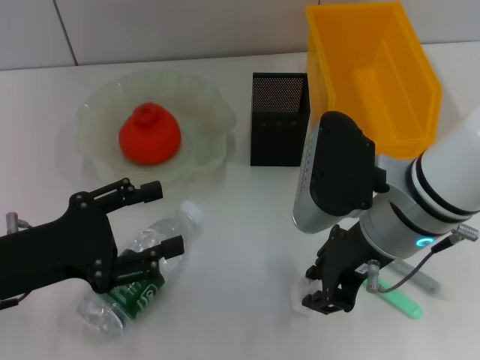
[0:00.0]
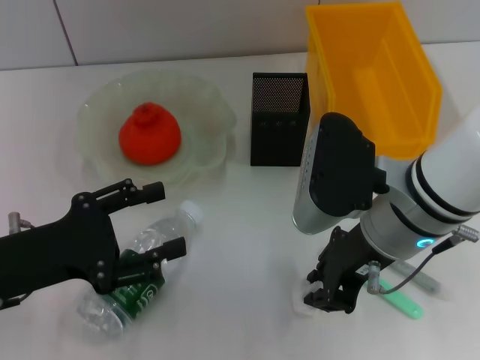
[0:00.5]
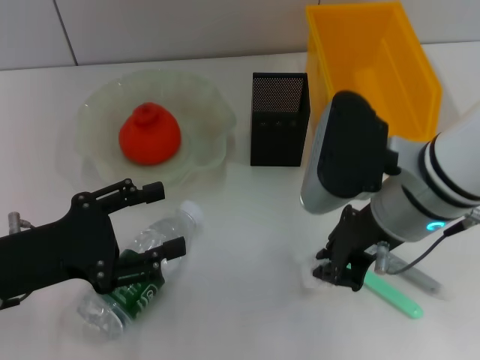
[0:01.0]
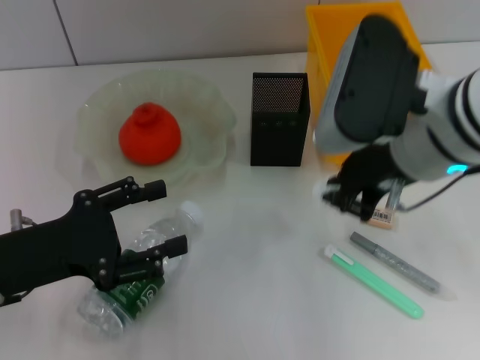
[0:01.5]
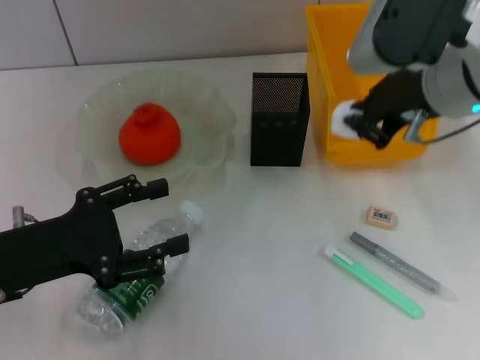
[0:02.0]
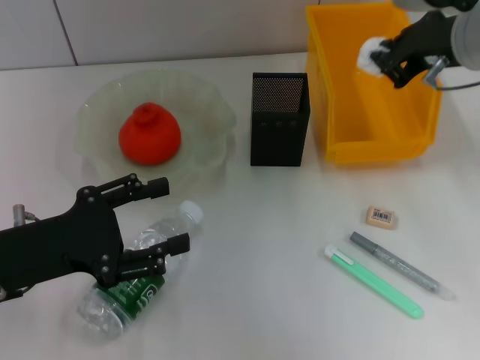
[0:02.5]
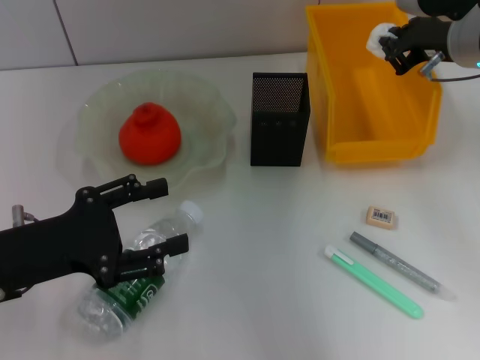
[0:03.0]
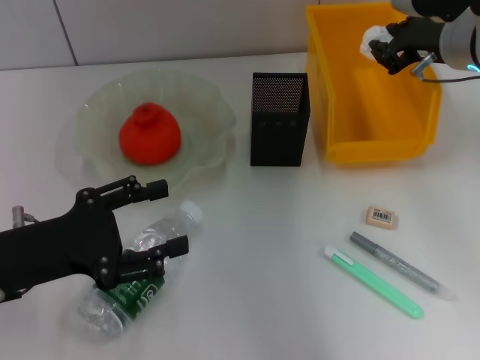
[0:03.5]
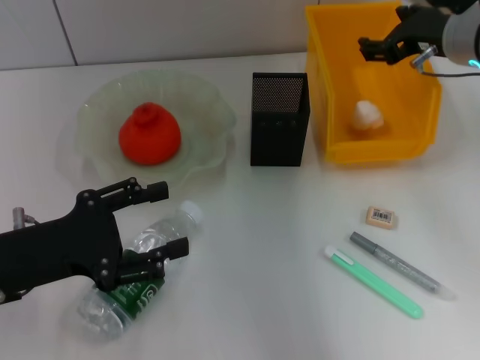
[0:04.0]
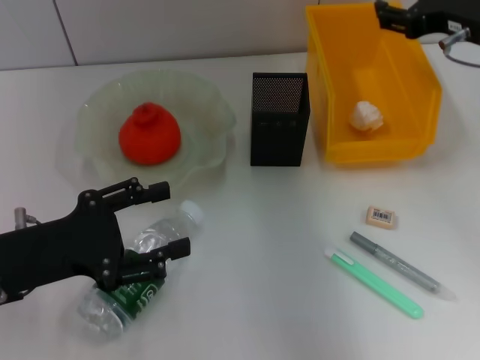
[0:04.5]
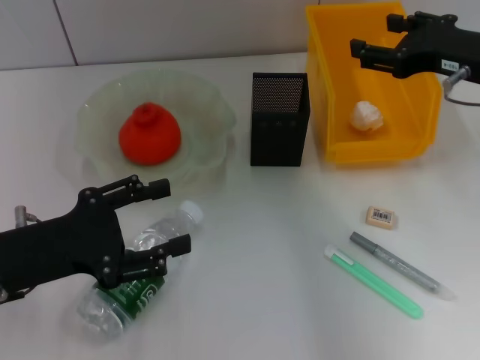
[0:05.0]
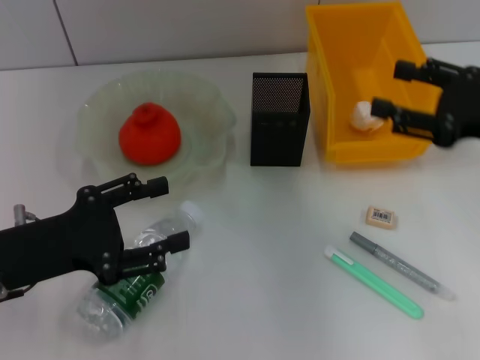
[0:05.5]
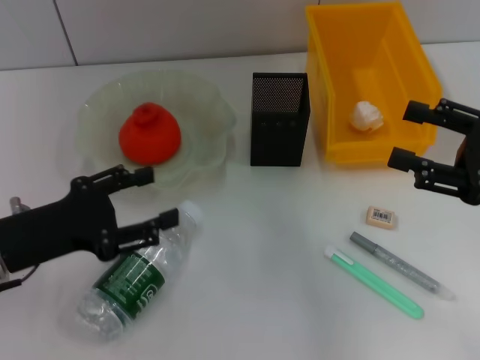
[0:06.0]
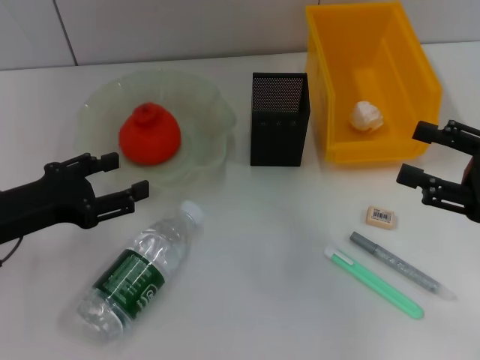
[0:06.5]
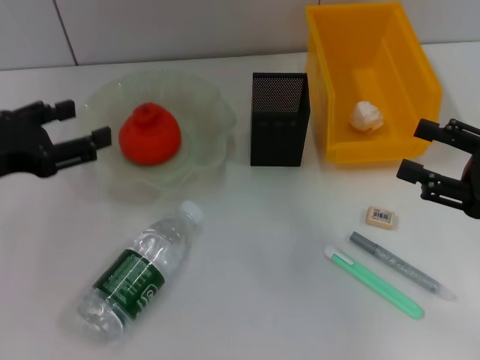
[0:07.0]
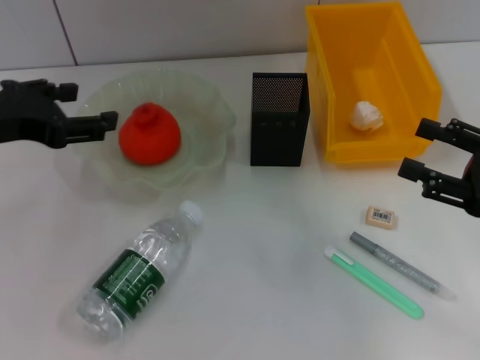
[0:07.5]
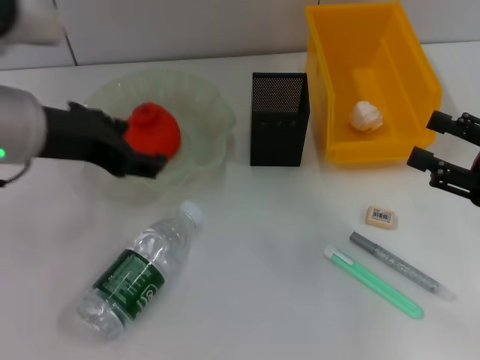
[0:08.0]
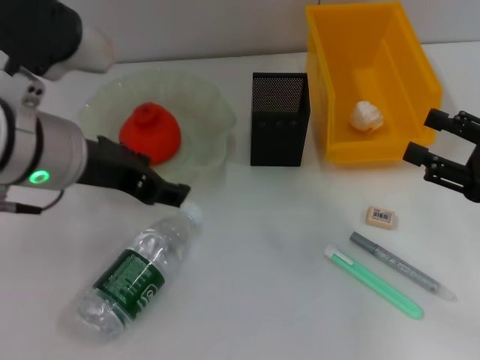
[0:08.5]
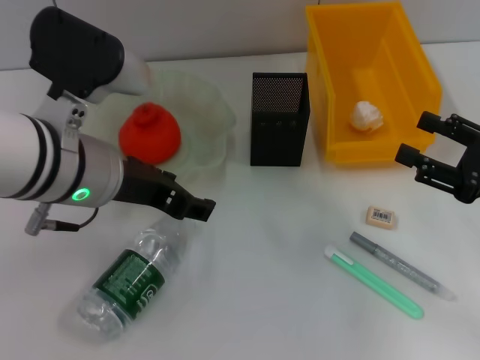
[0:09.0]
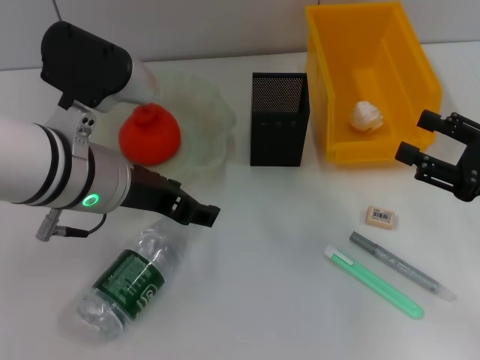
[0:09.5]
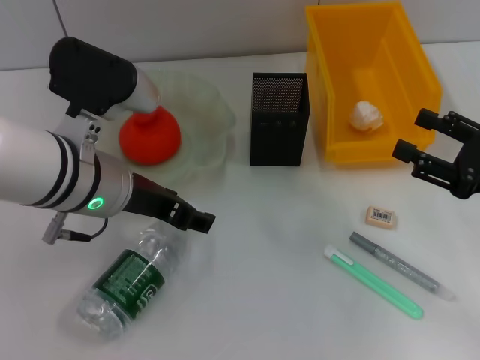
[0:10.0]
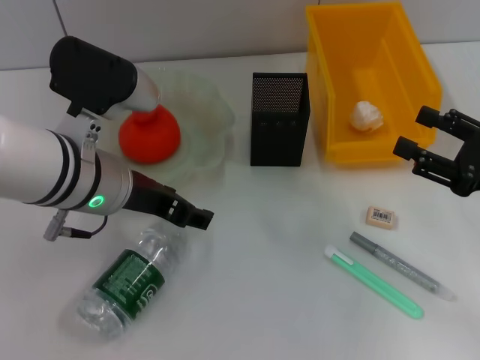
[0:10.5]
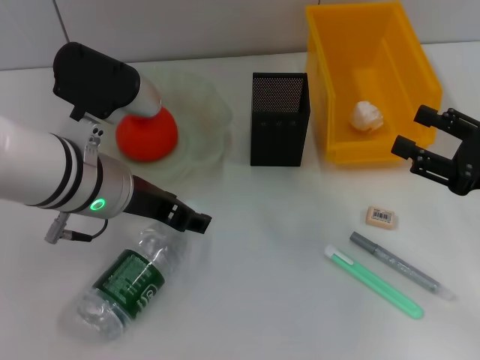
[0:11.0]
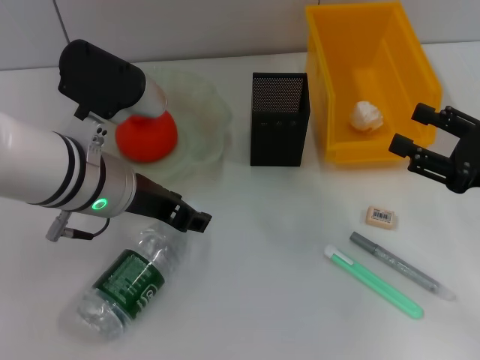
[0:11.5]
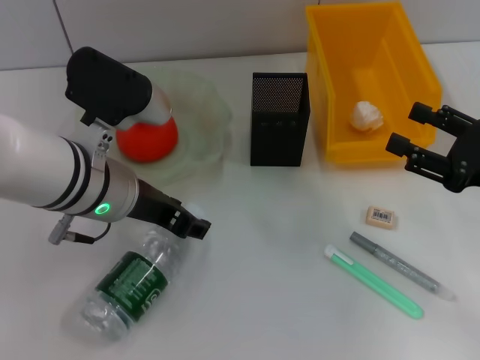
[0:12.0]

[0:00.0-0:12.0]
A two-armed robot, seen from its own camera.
Step, 0:01.0 to 0:03.5: Place the paper ball into the trash can with the right hand.
0:00.0 to 0:02.0: The right gripper travels upward by about 10 cm, and closes.
0:02.0 to 0:04.0: The right gripper moves forward and to the right, roughly 10 cm, and opens up.
0:04.0 to 0:06.0: The right gripper shifts roughly 20 cm backward, to the right and downward.
0:06.0 to 0:08.0: The left gripper travels upward and to the right by roughly 15 cm.
0:08.0 to 0:10.0: The left gripper is displaced downward by some 5 cm.
0:10.0 to 0:12.0: Neither gripper changes place.

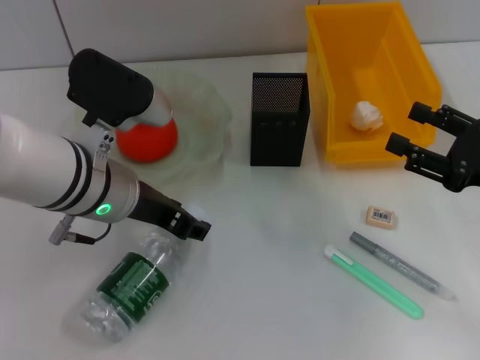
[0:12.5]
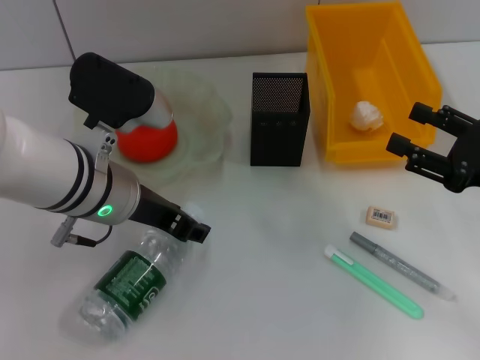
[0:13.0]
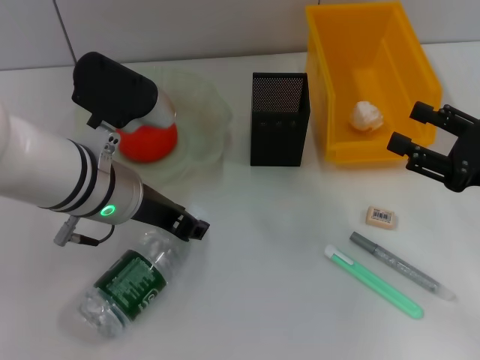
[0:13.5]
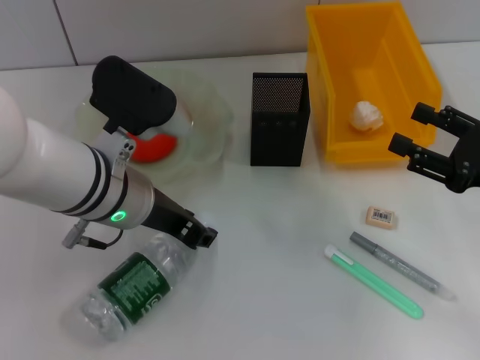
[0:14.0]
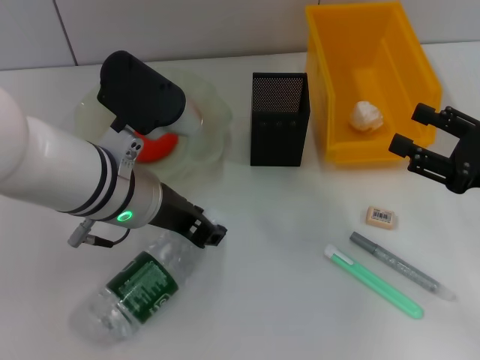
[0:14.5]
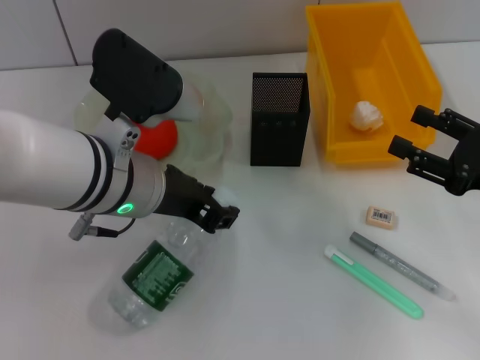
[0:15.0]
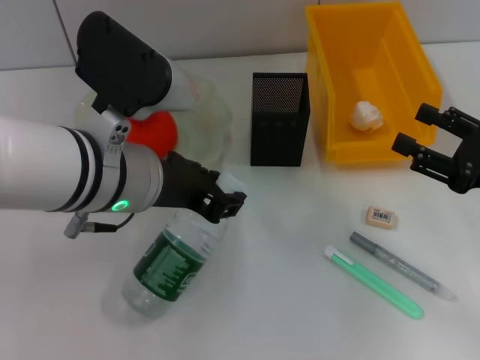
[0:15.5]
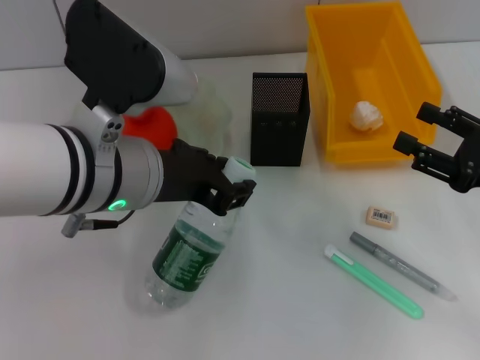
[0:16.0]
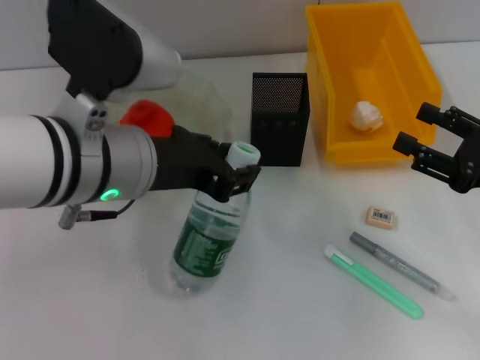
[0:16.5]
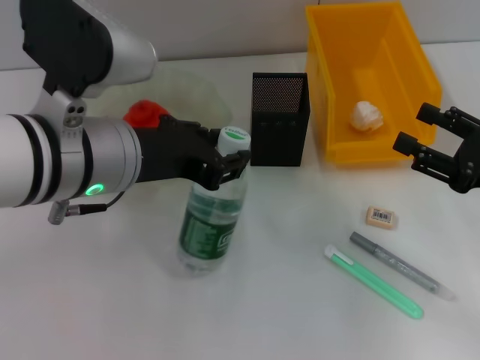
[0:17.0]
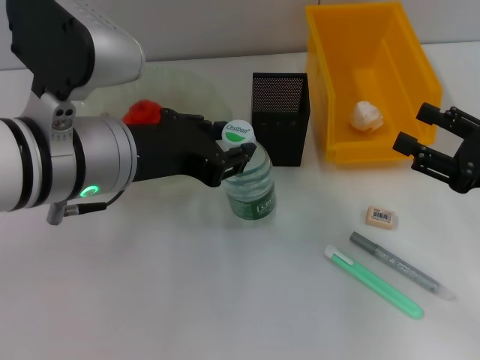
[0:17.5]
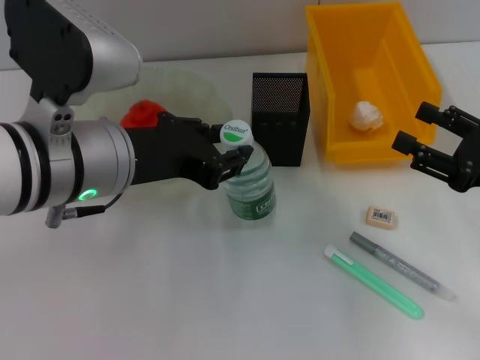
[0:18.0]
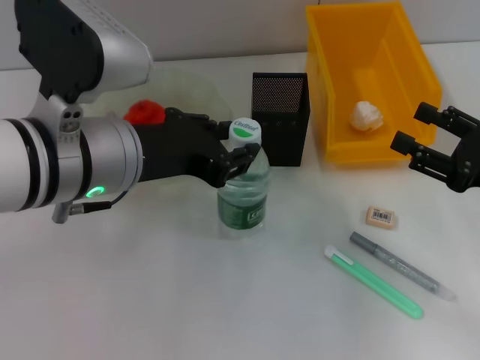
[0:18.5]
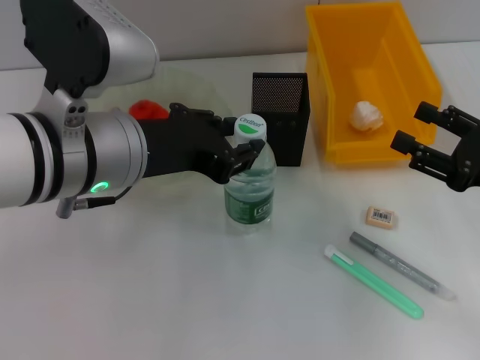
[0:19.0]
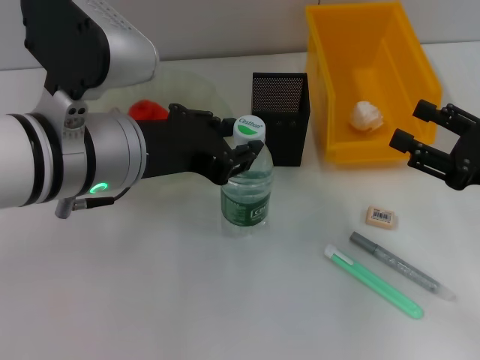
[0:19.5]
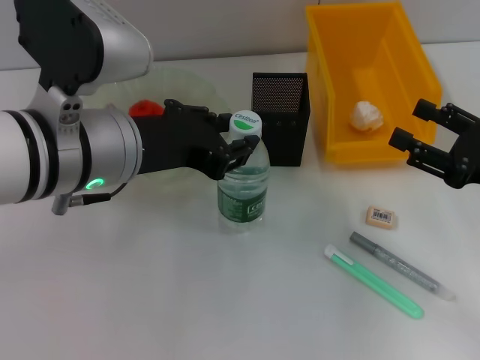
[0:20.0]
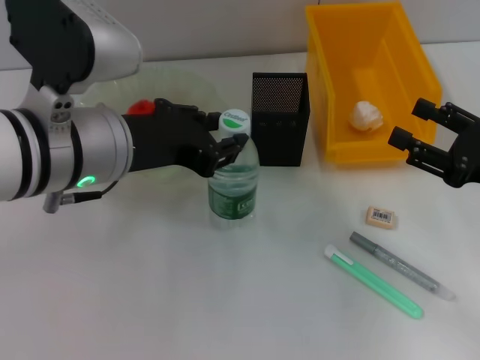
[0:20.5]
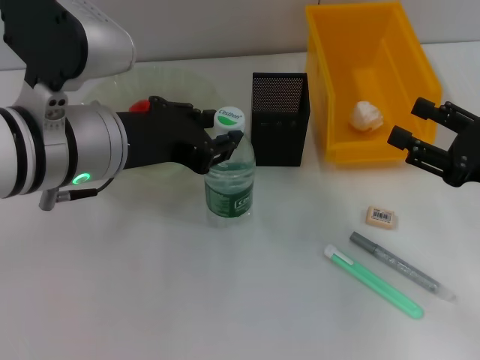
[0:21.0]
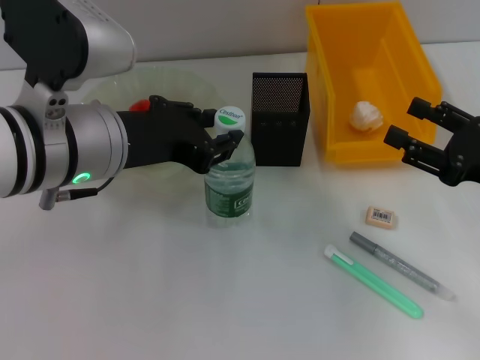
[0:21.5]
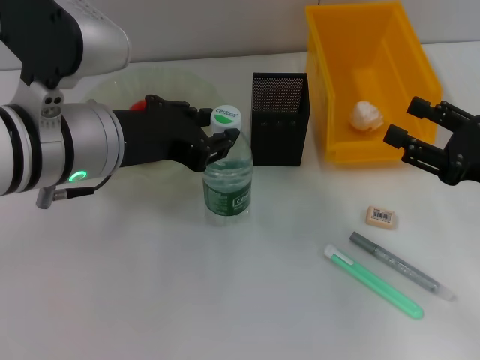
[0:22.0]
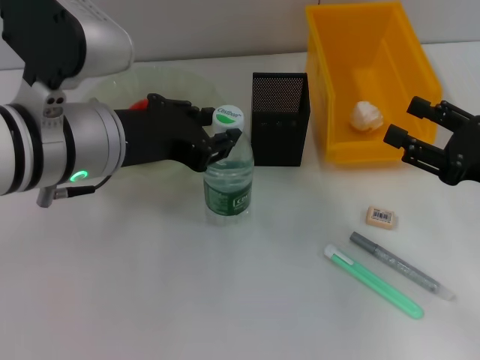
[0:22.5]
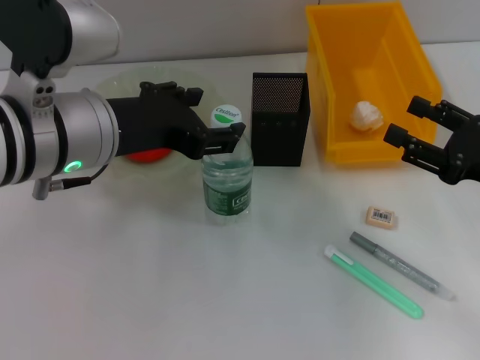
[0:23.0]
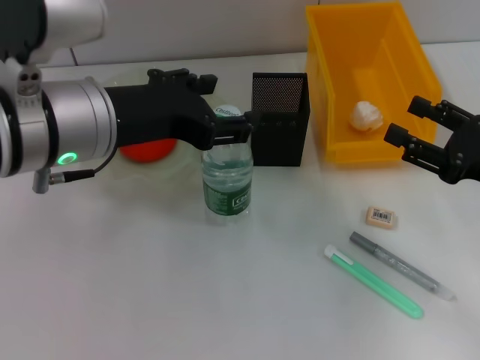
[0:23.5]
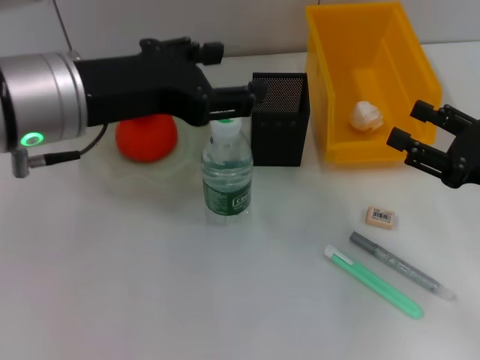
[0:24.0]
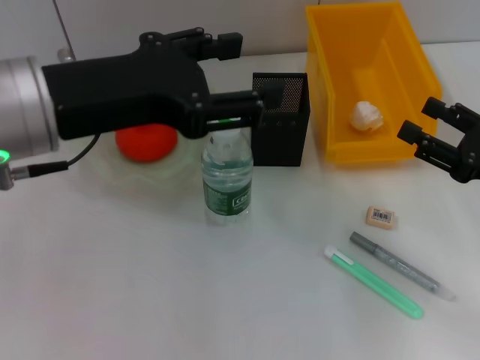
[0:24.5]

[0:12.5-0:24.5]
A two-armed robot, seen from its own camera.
Step, 0:14.5 to 0:22.5: Place the water bottle on the table with the left hand.
0:12.5 to 0:14.5: There are only small adjustments of the grippers.
0:14.5 to 0:16.5: The left gripper heads upward, covering about 5 cm.
0:16.5 to 0:18.5: There are only small adjustments of the grippers.
0:18.5 to 0:20.5: Both grippers stay put.
0:20.5 to 0:22.5: Both grippers stay about where they are.
0:22.5 to 0:24.5: The left gripper moves roughly 5 cm, and opens up.

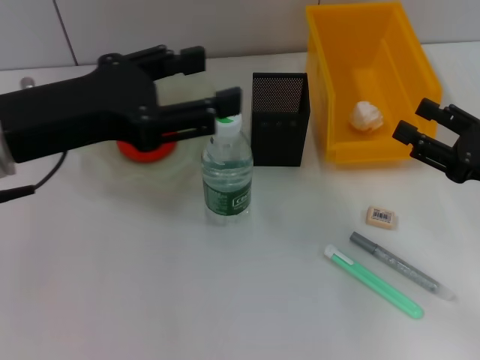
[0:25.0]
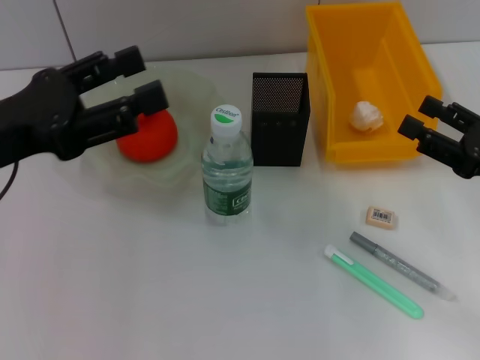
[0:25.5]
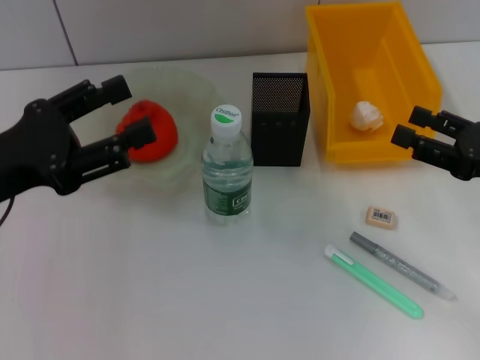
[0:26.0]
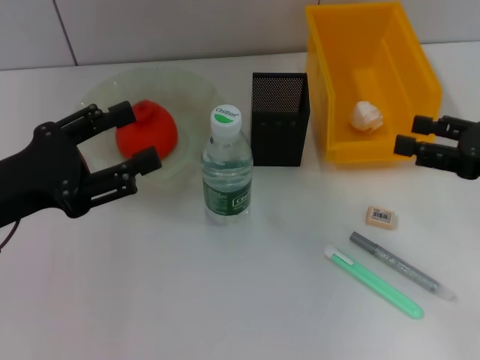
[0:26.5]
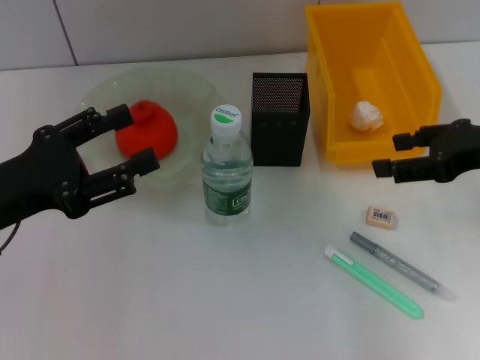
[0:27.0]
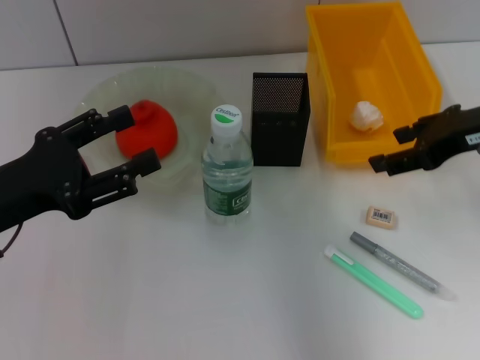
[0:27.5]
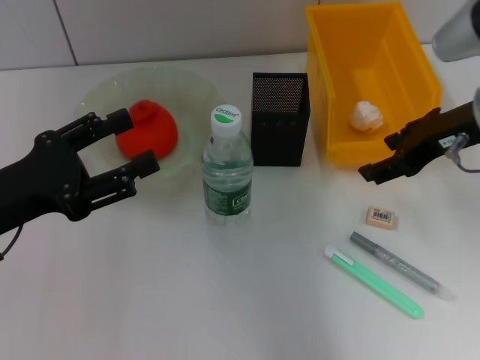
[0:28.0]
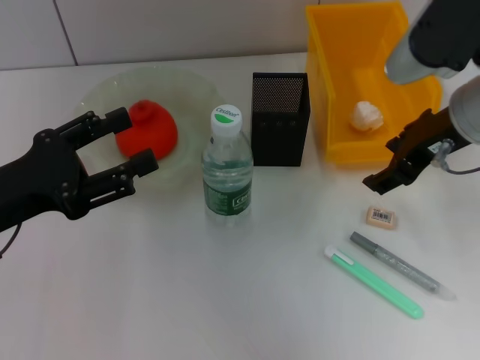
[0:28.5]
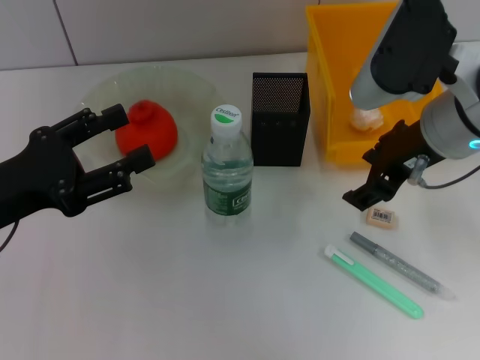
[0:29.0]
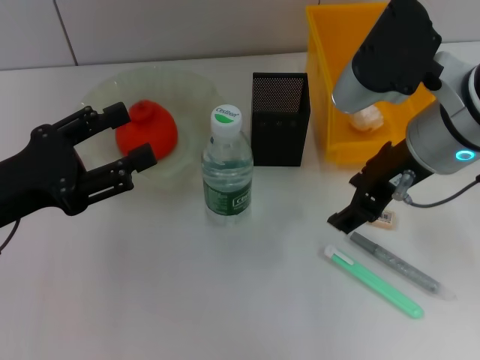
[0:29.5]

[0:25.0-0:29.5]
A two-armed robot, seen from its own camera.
0:25.0 to 0:27.0: The right gripper heads upward, covering about 10 cm. The left gripper moves downward and to the left, approximately 10 cm.
0:27.0 to 0:29.5: The right gripper heads to the left, covering roughly 15 cm.
